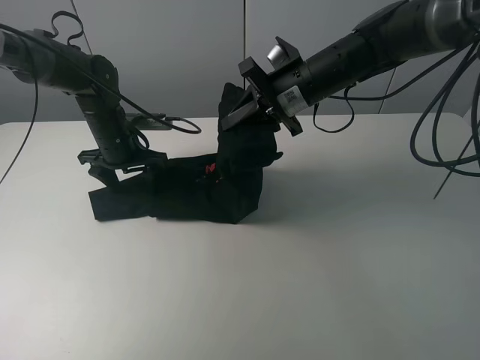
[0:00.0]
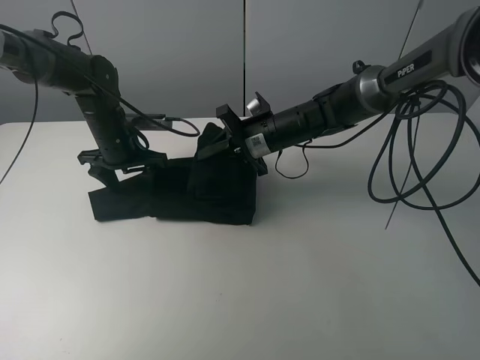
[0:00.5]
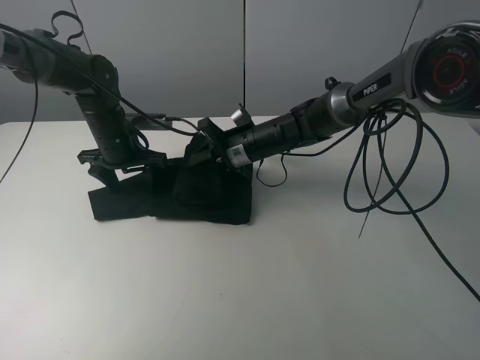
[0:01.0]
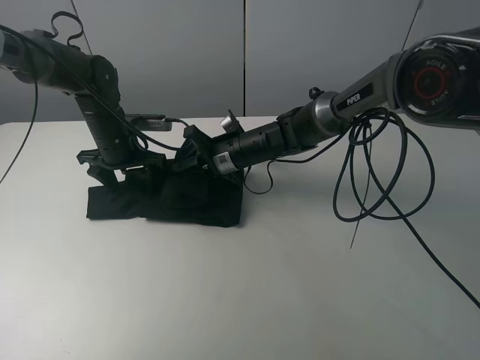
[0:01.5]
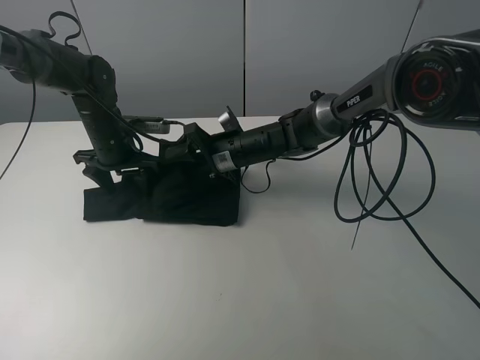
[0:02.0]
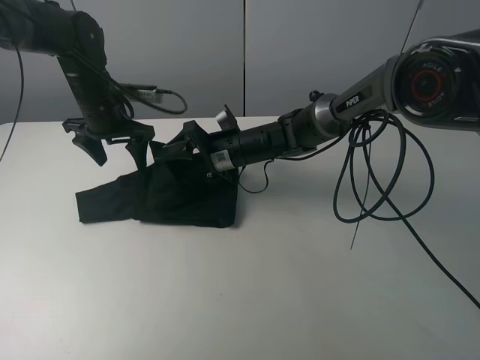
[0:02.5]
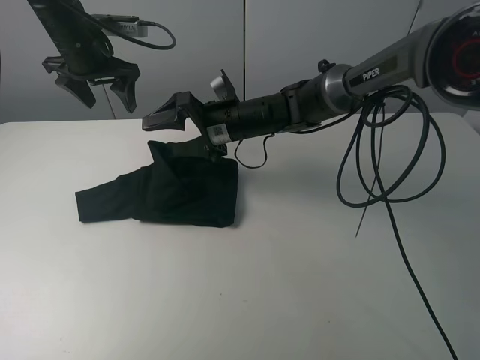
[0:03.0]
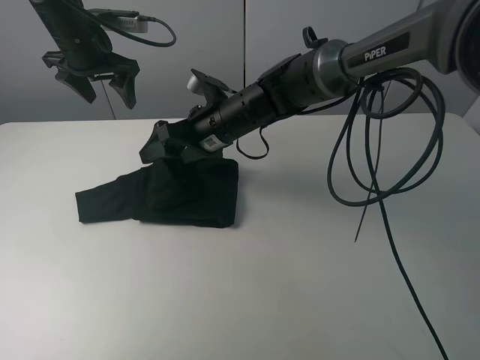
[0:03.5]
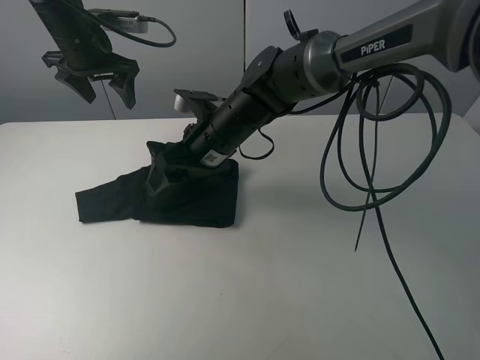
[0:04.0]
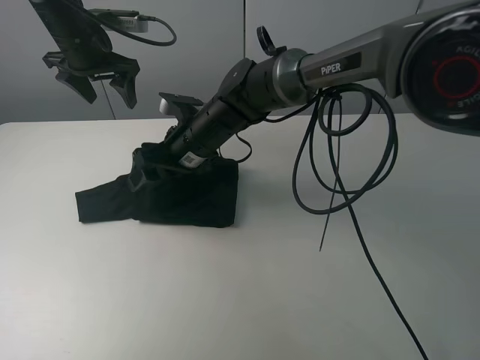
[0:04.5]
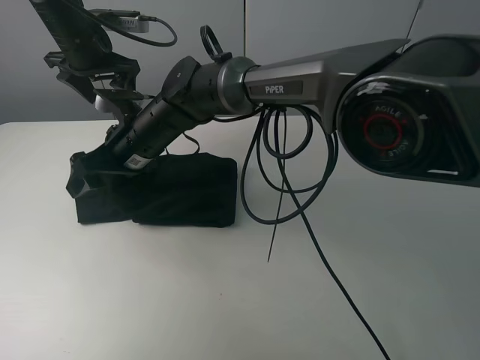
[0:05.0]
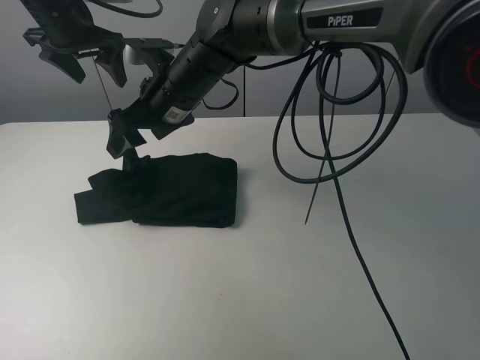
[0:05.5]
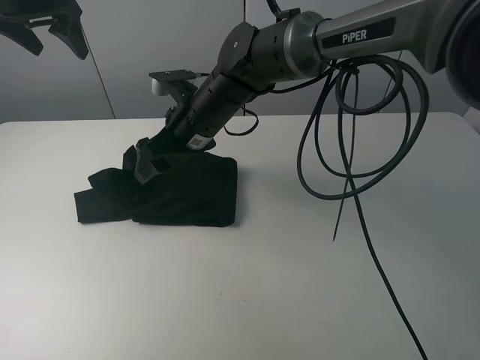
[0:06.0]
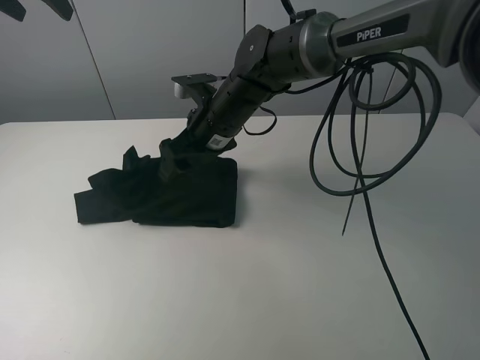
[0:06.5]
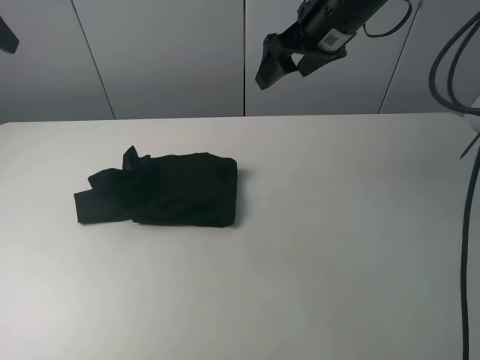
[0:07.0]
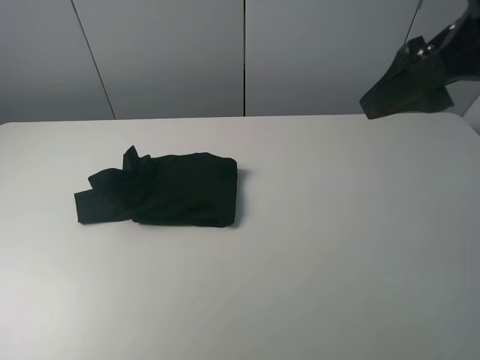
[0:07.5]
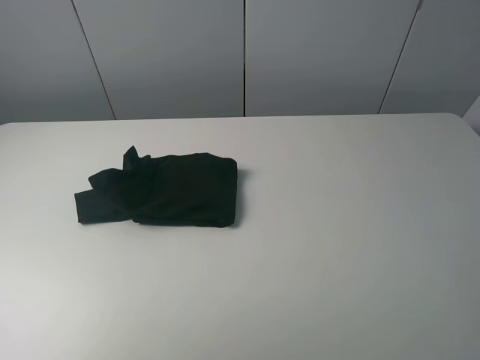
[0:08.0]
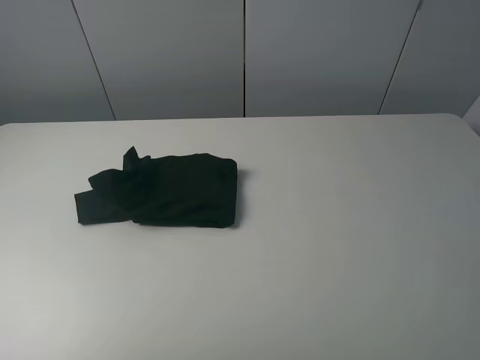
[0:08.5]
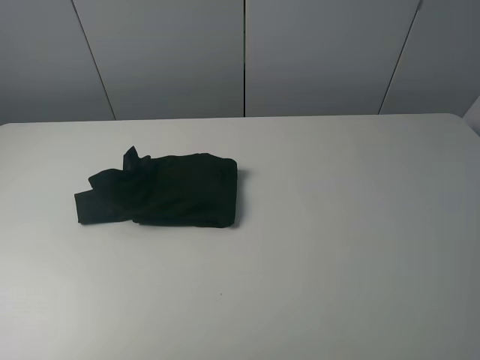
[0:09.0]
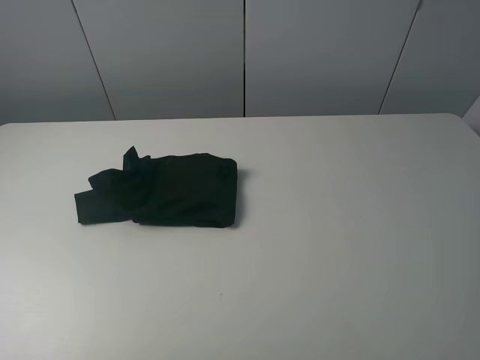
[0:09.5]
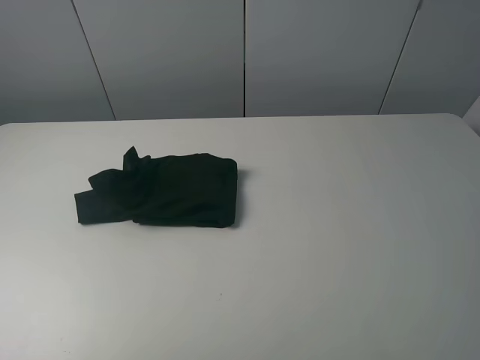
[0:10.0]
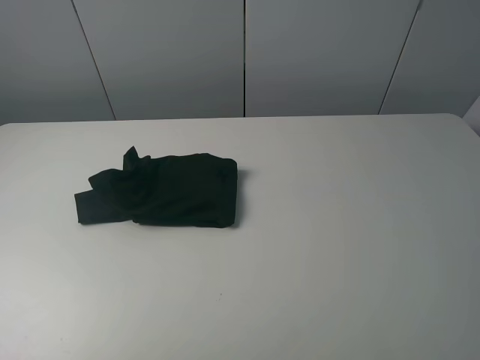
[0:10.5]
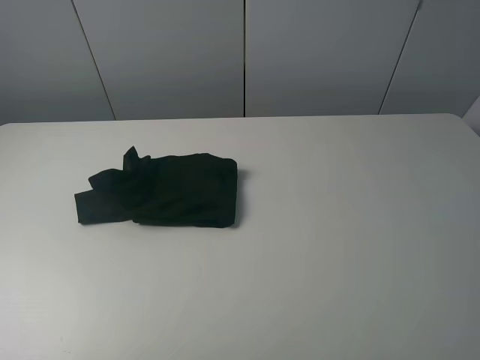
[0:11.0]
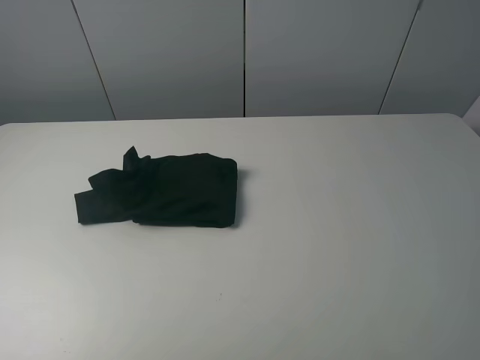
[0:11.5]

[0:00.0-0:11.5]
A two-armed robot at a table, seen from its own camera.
Task of the whole recording: fold the clothes on the table.
Step, 0:00.0 to 0:05.0: Fold the black T-shirt from right to left with right gripper.
0:00.0 to 0:02.0: The right gripper travels downward and to the left by some 15 cm, and opens up.
0:02.0 to 0:04.0: The right gripper heads upward, covering some 5 cm, while the left gripper heads upward, covering about 15 cm.
0:04.0 to 0:06.0: The left gripper goes approximately 10 cm upward and to the left. Meanwhile the right gripper moves approximately 10 cm to the left and comes back.
0:06.0 to 0:07.5: The right gripper travels to the right, upward and backward by approximately 35 cm. Meanwhile the left gripper goes about 30 cm backward.
0:07.5 to 0:09.5: The right gripper travels backward by about 20 cm, while the left gripper heads backward and downward, covering some 20 cm.

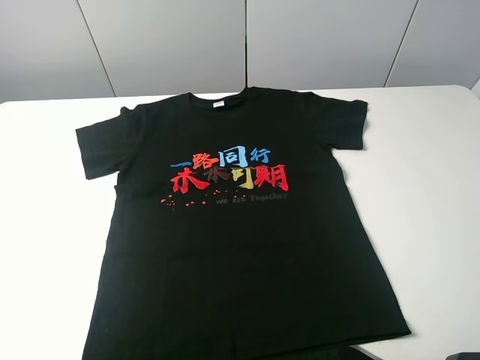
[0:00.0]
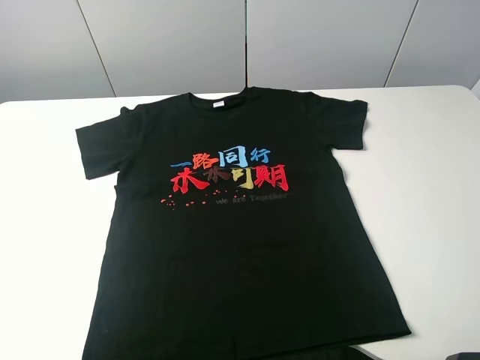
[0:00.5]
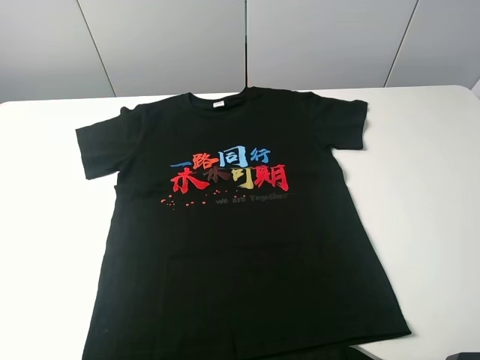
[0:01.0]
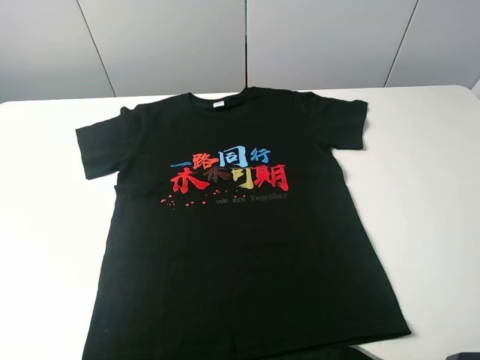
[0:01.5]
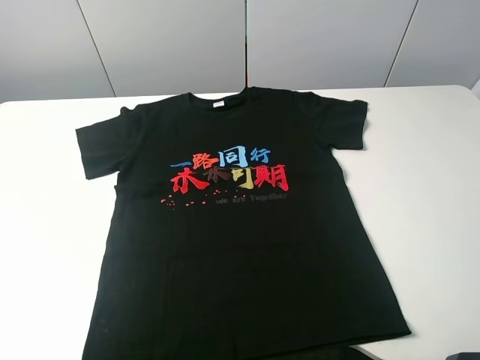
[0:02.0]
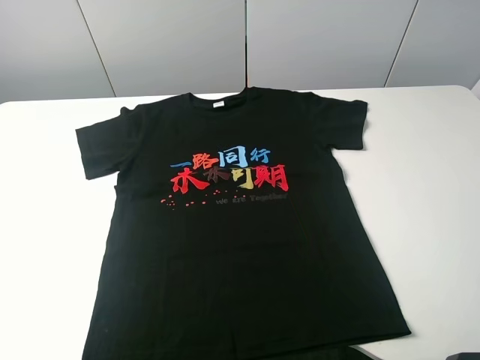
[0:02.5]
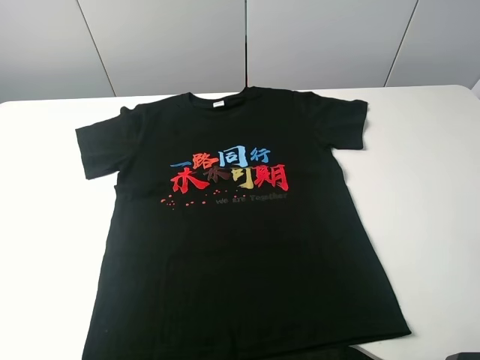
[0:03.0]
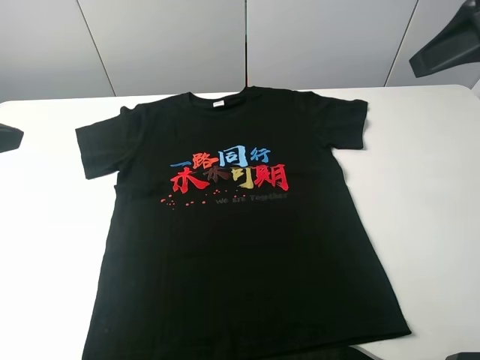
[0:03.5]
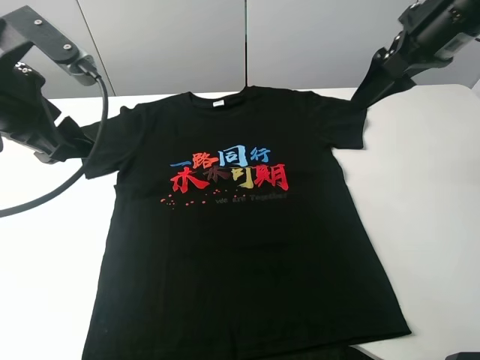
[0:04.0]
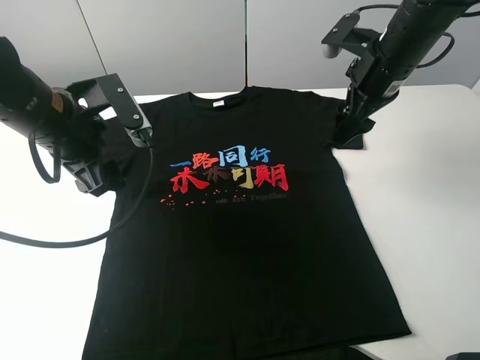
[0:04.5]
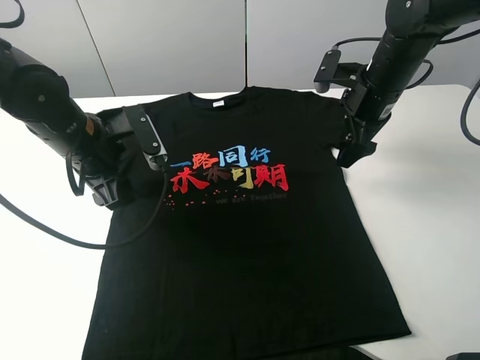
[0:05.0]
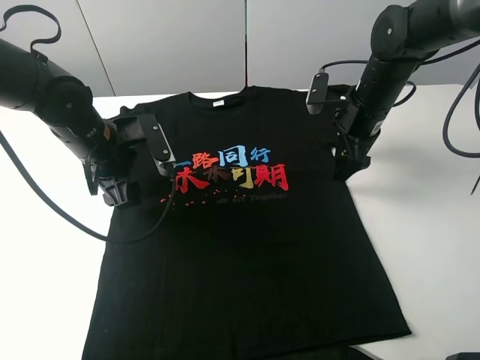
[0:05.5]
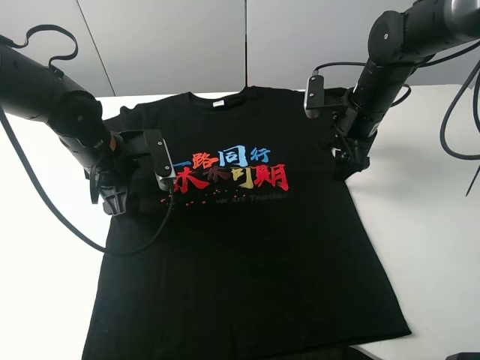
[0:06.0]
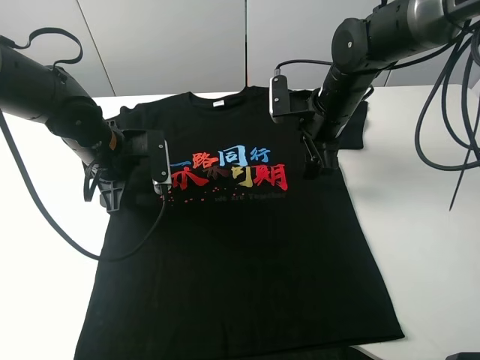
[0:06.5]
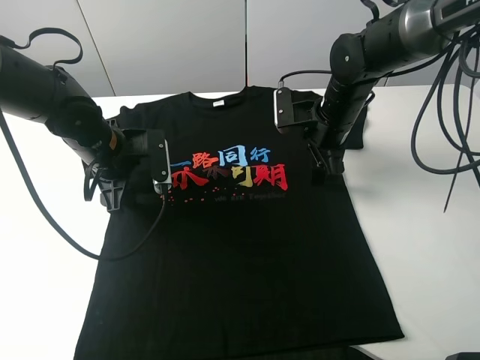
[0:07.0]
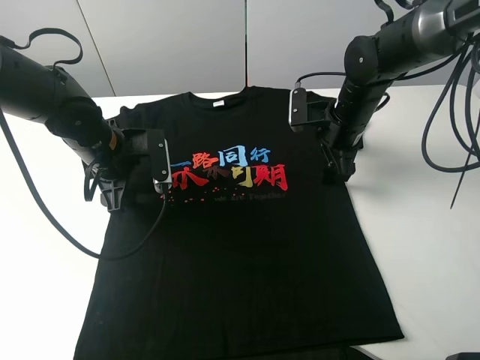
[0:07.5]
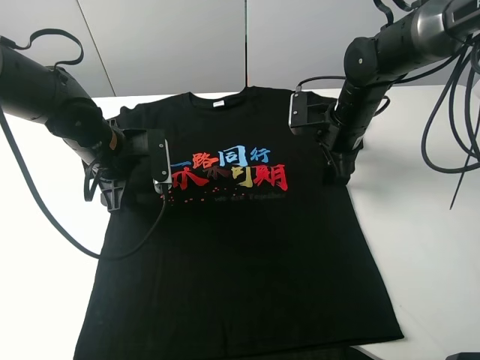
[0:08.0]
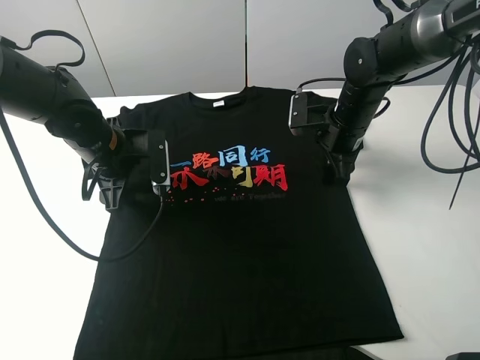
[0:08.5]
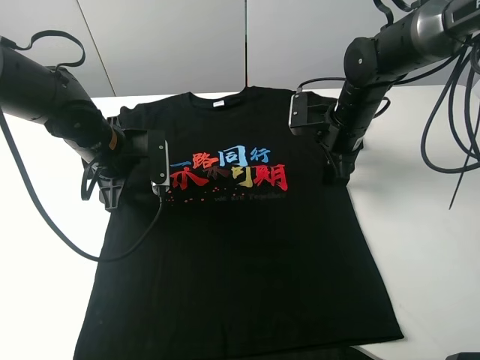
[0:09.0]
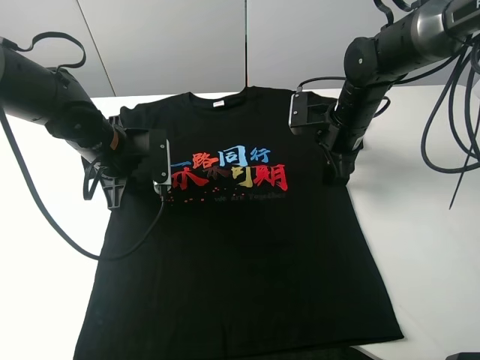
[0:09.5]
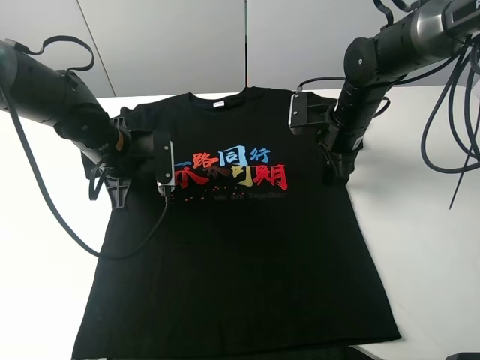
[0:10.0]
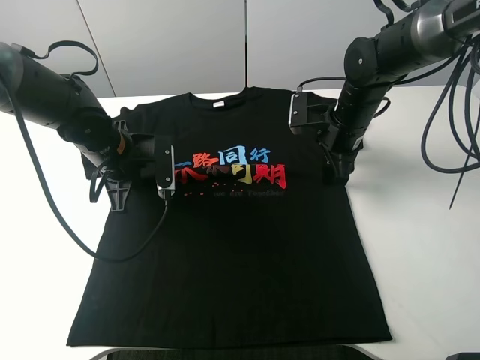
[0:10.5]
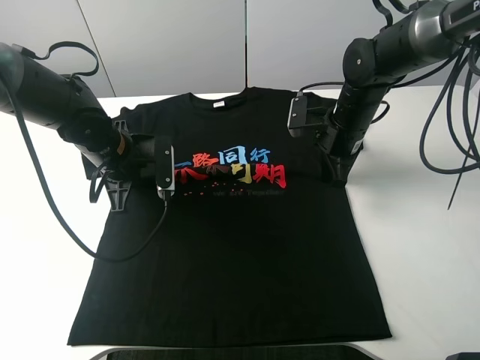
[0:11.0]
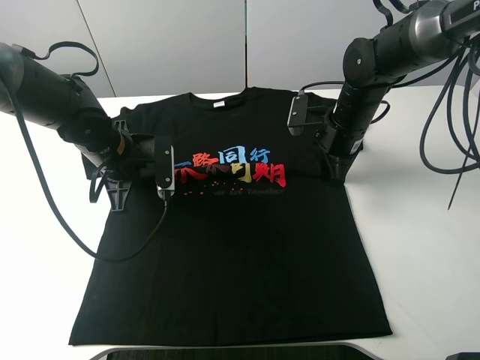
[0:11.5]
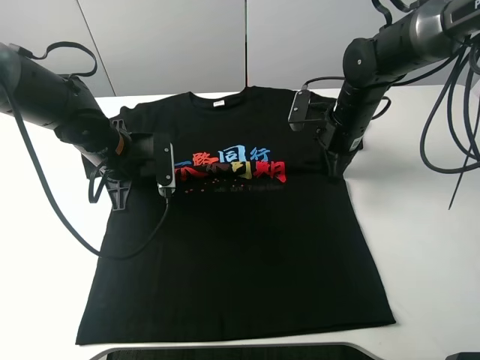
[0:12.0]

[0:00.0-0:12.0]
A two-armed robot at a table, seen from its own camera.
Task of the whole recording: fold the clothes on the table.
Step, 0:00.0 to 0:10.0: Lift the black T-shirt with the left gripper.
0:00.0 to 0:02.0: Both grippers stay put.
0:02.0 to 0:04.0: Both grippers travel together forward, approximately 30 cm.
0:04.0 to 0:06.0: The left gripper is displaced downward and forward by approximately 15 cm, while the right gripper heads downward, covering roughly 15 cm.
0:06.0 to 0:08.0: There are only small adjustments of the grippers.
0:08.0 to 0:10.0: The left gripper closes.
0:10.0 to 0:12.0: The right gripper closes its fingers; the left gripper closes up.

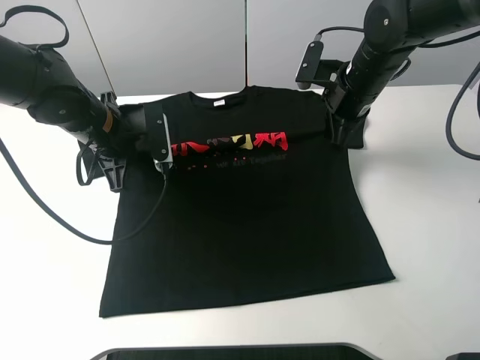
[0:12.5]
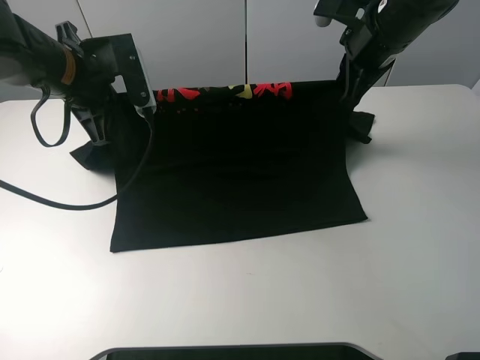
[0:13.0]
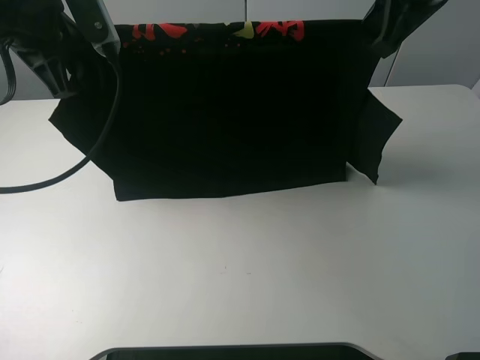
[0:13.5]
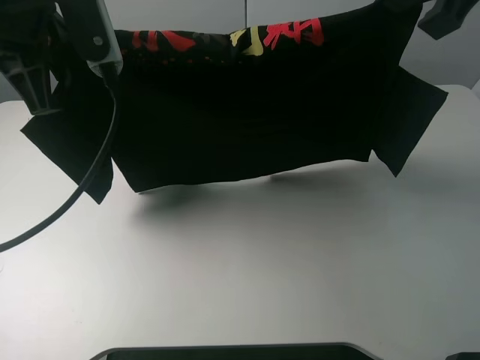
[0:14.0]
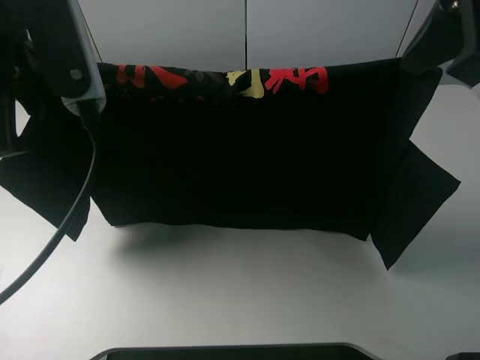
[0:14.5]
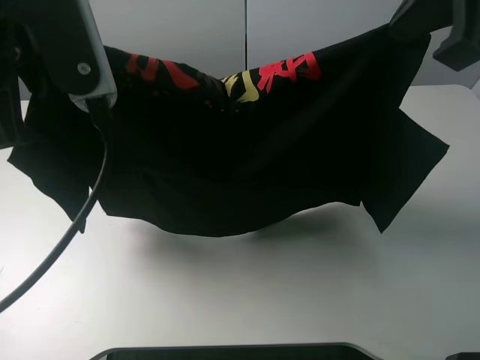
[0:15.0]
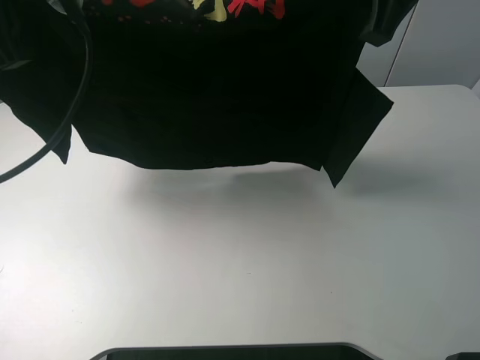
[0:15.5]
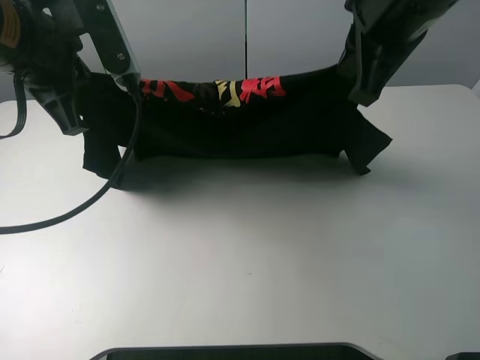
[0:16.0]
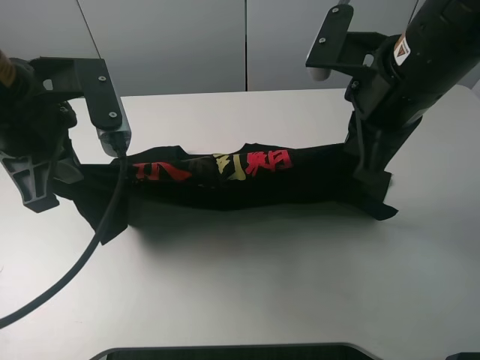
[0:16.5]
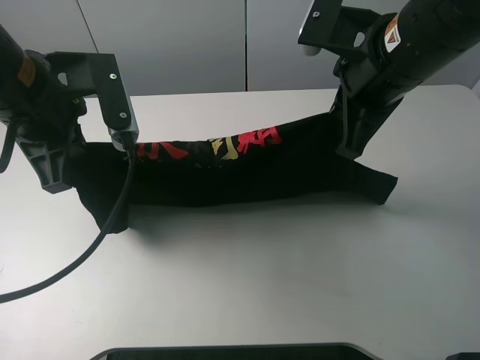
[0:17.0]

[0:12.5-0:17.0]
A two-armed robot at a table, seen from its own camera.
Task of the whole recording: fold the clothes on the table.
0:12.5 to 0:14.5: The grippers both shift upward and backward by some 25 cm.
0:14.5 to 0:17.0: The left gripper goes some 10 cm downward and forward; the right gripper goes some 10 cm downward.
